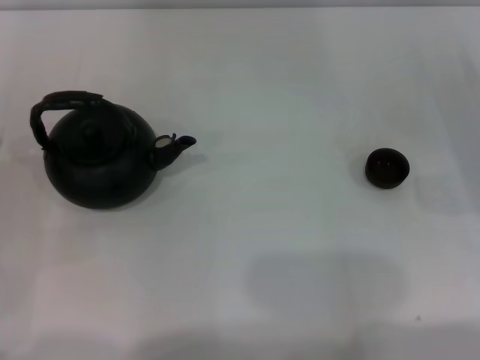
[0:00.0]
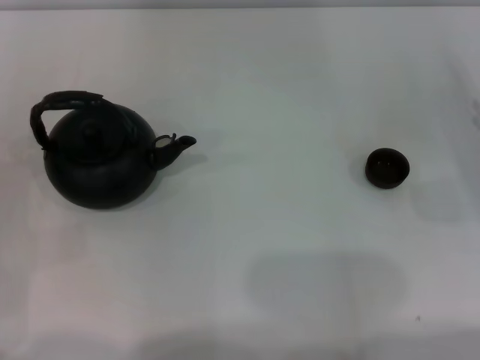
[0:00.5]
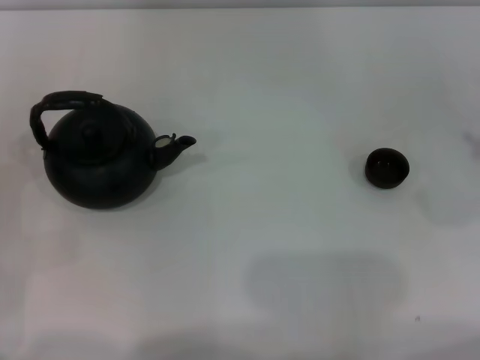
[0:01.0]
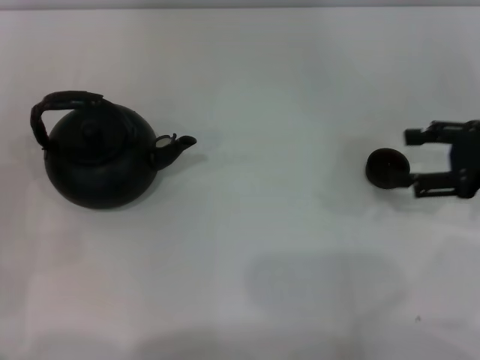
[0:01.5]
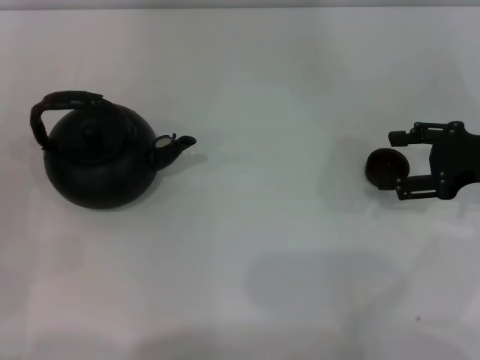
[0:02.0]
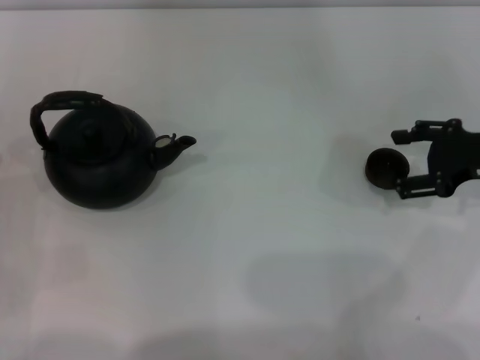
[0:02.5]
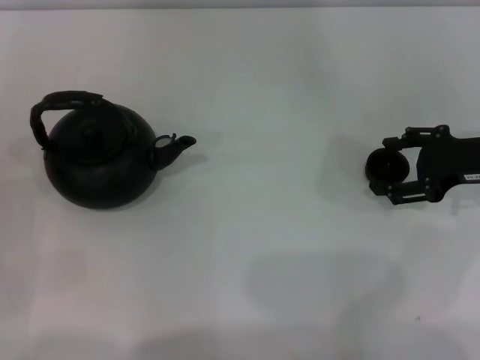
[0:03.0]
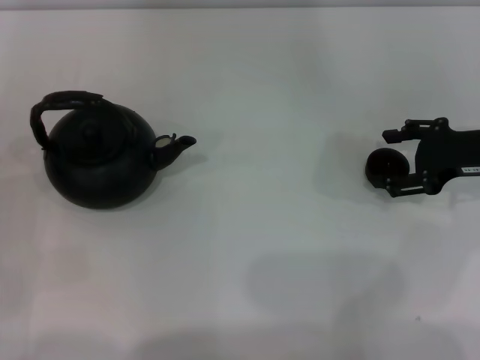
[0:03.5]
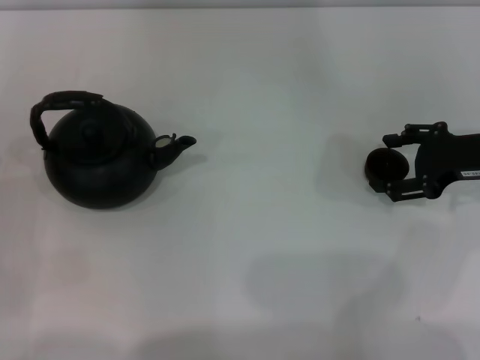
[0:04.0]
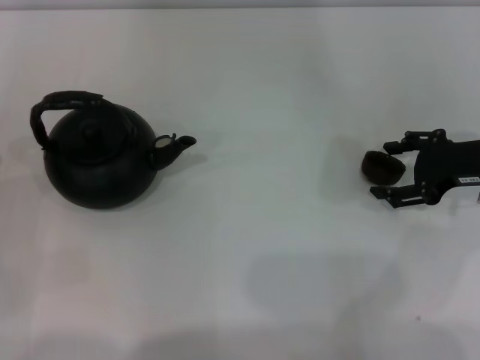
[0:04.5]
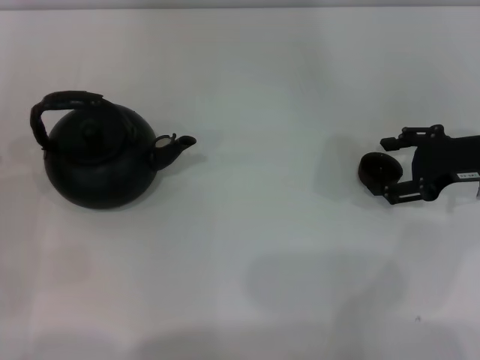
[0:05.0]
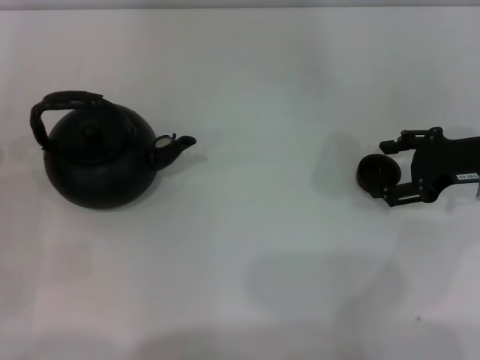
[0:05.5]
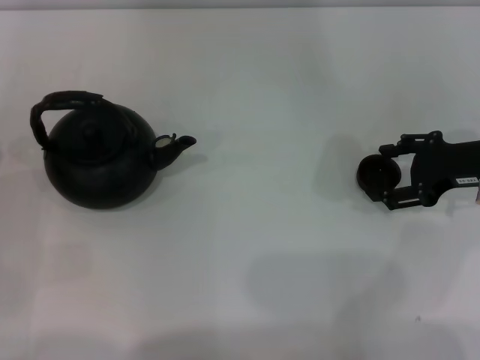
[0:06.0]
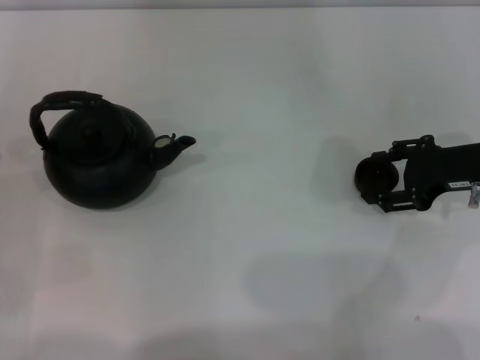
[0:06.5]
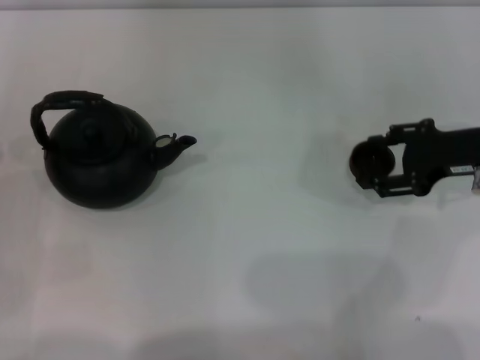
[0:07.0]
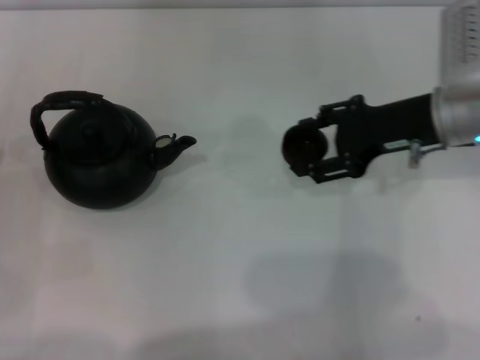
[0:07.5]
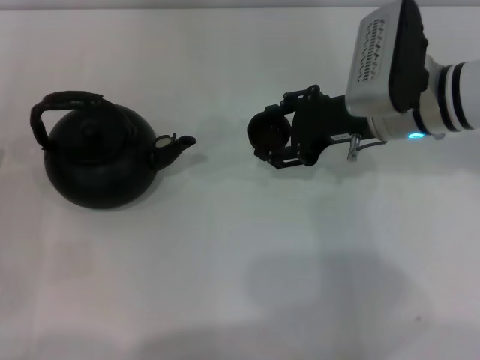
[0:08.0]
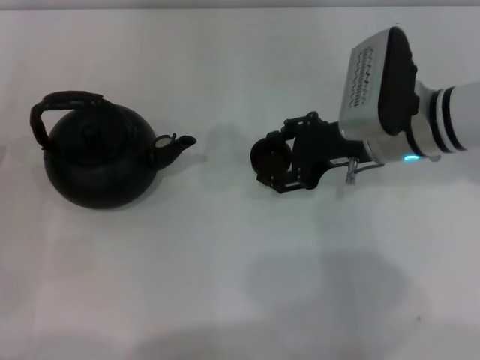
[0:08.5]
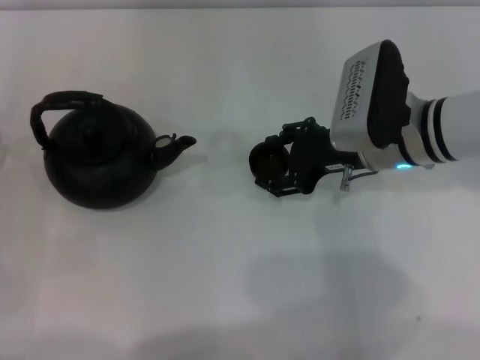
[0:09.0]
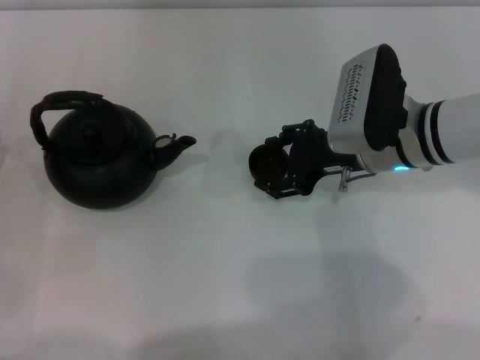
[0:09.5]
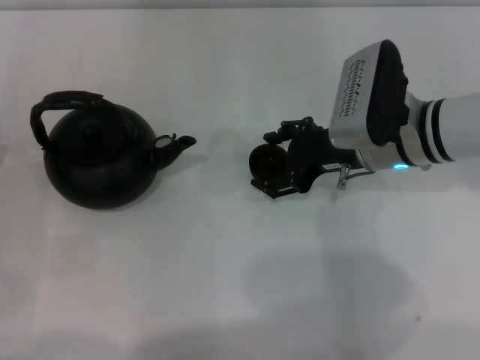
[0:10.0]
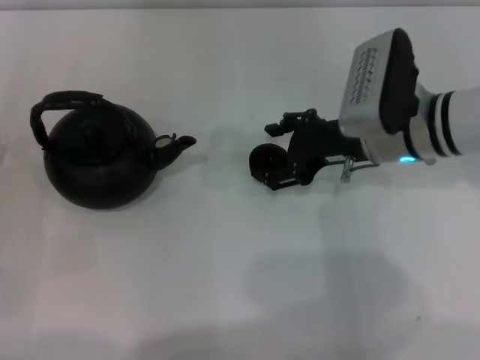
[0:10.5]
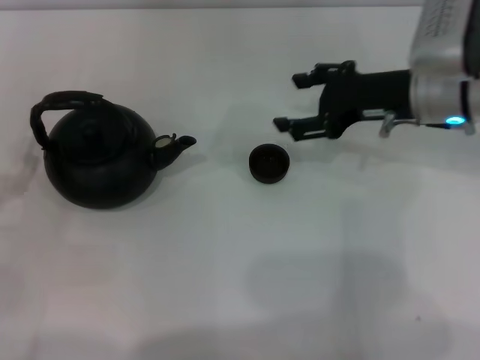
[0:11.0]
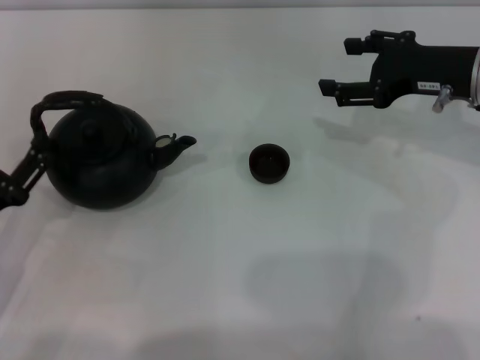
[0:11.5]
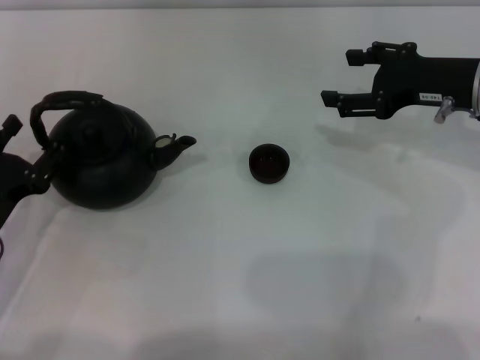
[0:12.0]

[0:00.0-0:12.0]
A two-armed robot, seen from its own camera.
Task of the whole recording: Grasp the handle of the teapot with one hand and pour tea into the teacup.
Step, 0:00.0 to 0:07.5: Pick up the teacup with the right gripper.
Step, 0:08.0 to 0:10.5: Place the teacup in the center of view with the right gripper.
0:00.0 to 0:02.0: The right gripper goes approximately 10 cm upward and to the left.
0:02.0 to 0:04.0: The grippers move only a little.
0:04.0 to 0:06.0: Both grippers stay put.
0:06.0 to 0:08.0: The right gripper moves to the left, roughly 15 cm, and closes its fingers.
0:08.0 to 0:10.0: The right gripper opens up.
0:10.0 to 0:12.0: The right gripper goes roughly 10 cm to the right; the left gripper travels to the right by about 5 cm.

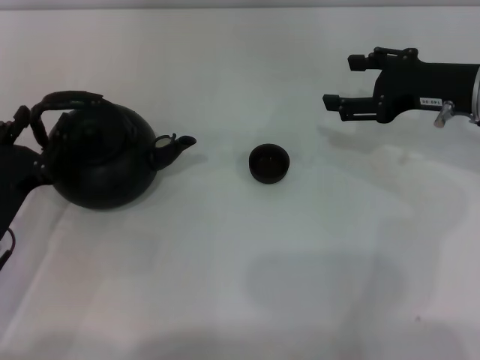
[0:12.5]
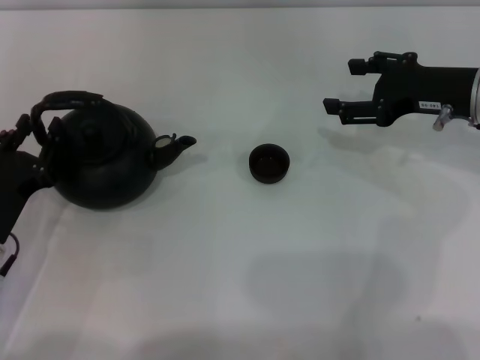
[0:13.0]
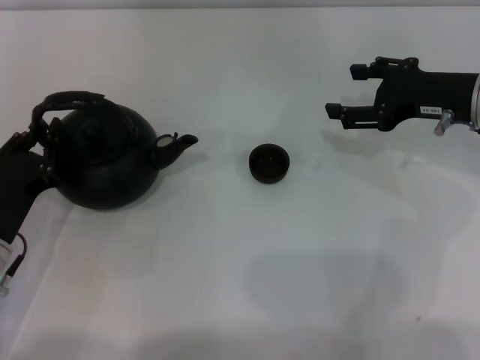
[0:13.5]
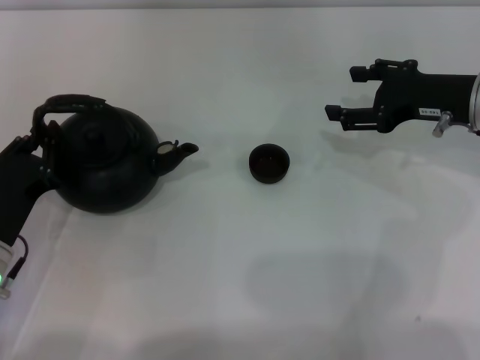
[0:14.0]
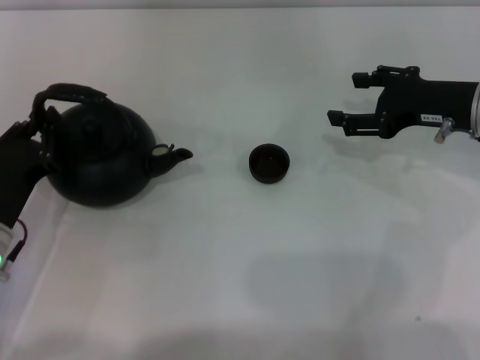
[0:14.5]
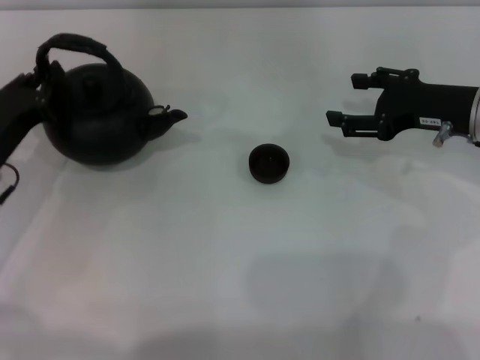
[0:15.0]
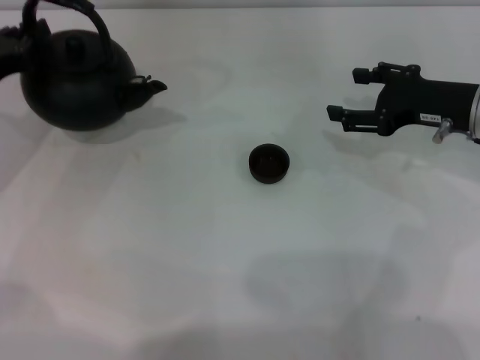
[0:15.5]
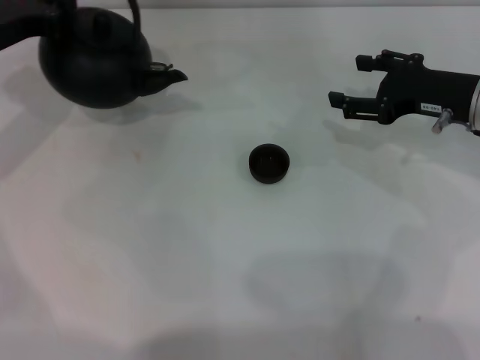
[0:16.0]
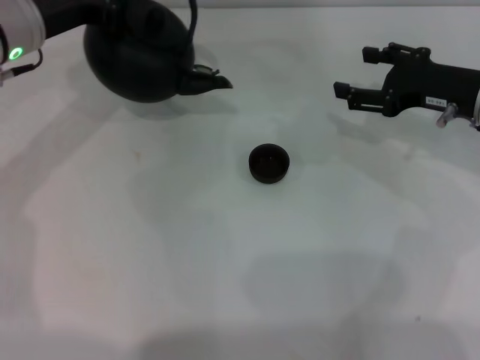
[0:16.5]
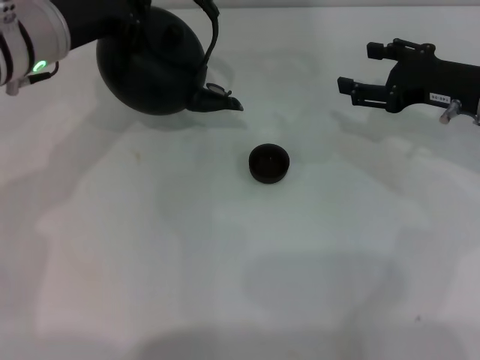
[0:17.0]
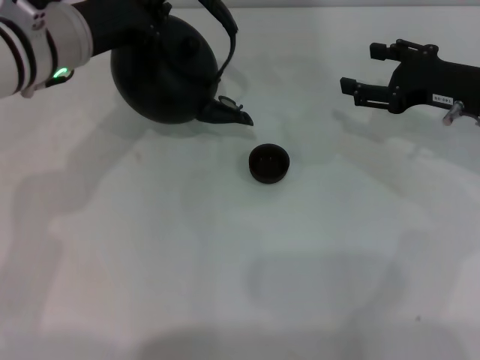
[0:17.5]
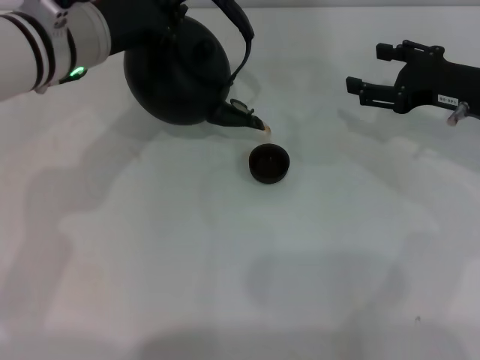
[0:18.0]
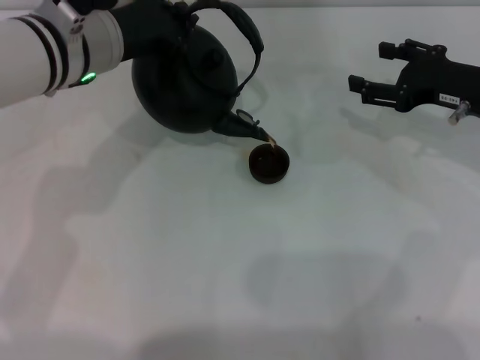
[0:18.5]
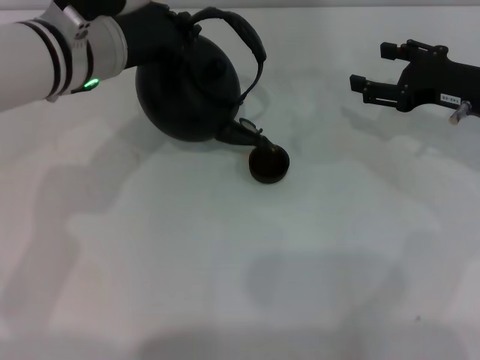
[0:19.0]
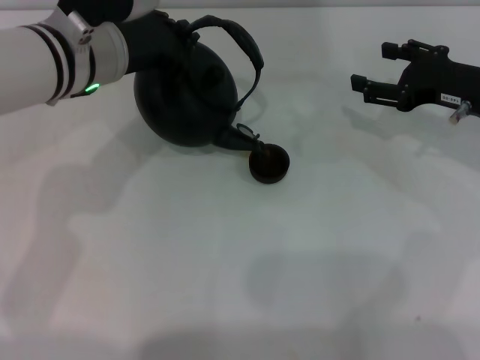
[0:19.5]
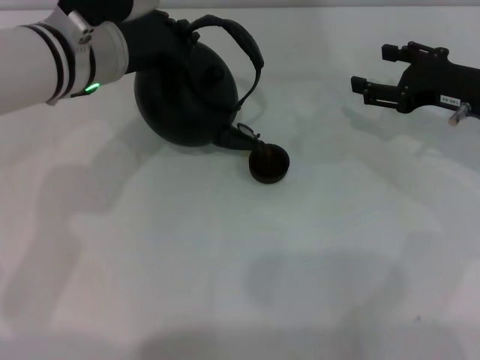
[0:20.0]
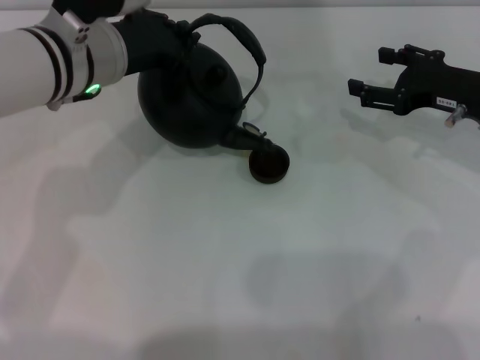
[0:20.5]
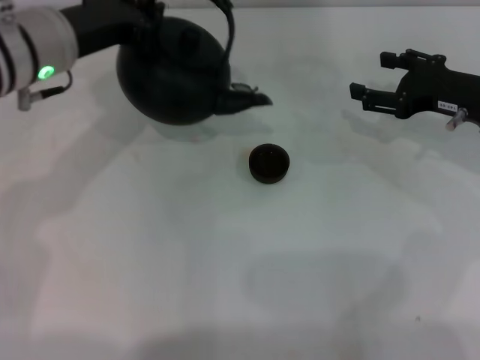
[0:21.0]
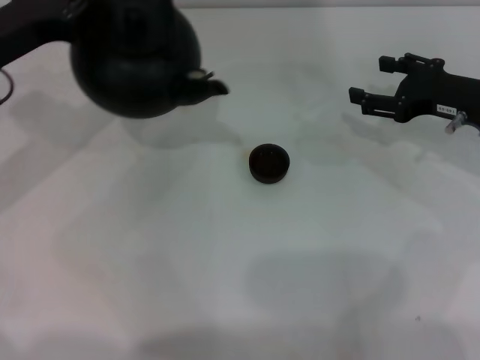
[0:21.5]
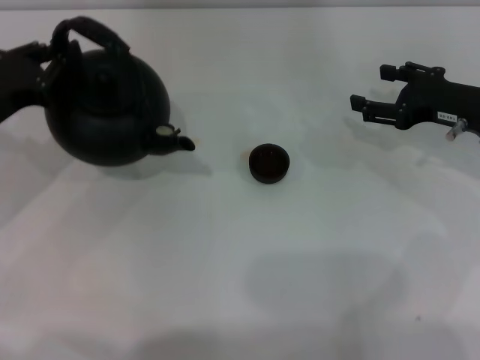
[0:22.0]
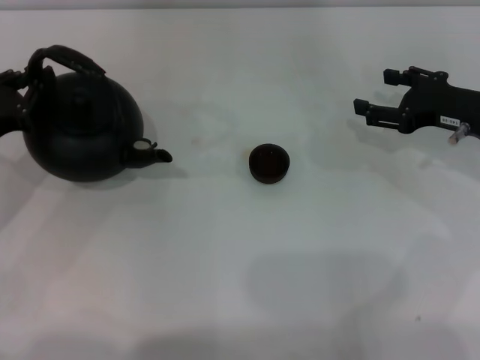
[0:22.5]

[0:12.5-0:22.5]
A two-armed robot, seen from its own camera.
Task of the whole recording: Grasp the handle of the teapot with one hand and pour tea into the teacup.
Step, 0:12.5 to 0:15.0: Pick up the teapot with the left gripper.
Step, 0:15.5 to 0:20.5: Pour tea into the teacup with the left gripper.
0:12.5 to 0:14.5: The left gripper closes up.
0:14.5 to 0:16.5: The left gripper travels forward and upward by roughly 20 cm.
0:16.5 to 0:18.5: The left gripper heads to the right, covering roughly 10 cm.
0:18.5 to 0:20.5: Neither gripper changes place.
0:20.5 to 0:22.5: The left gripper heads to the left, downward and backward, covering roughly 20 cm.

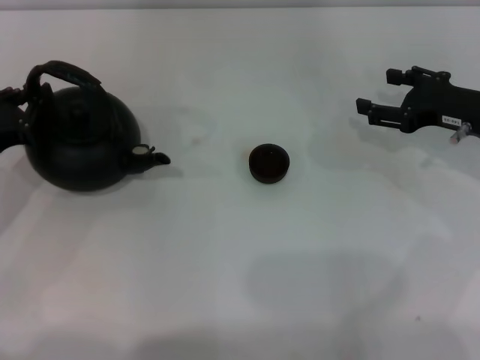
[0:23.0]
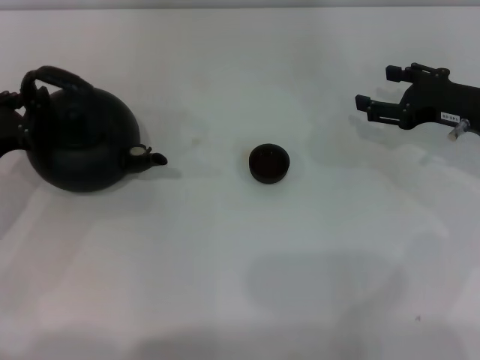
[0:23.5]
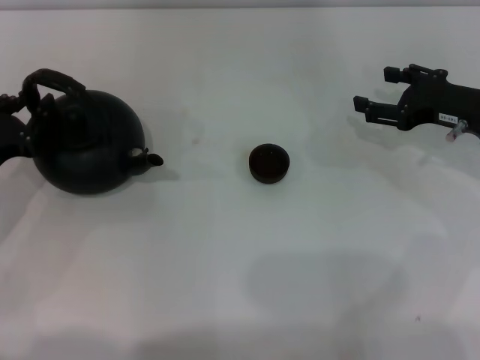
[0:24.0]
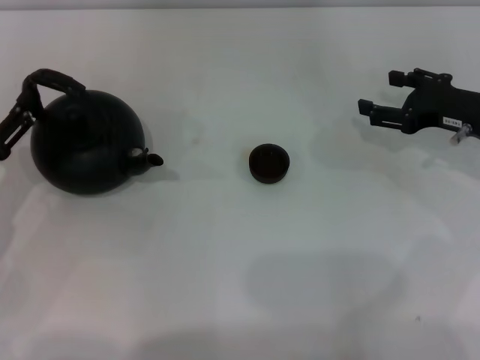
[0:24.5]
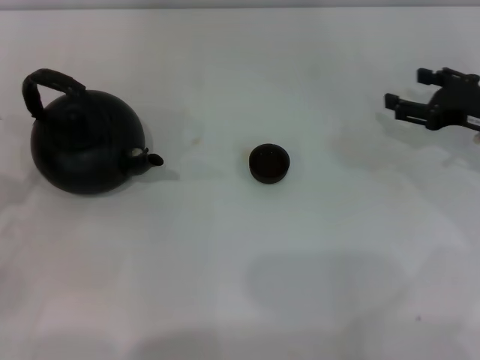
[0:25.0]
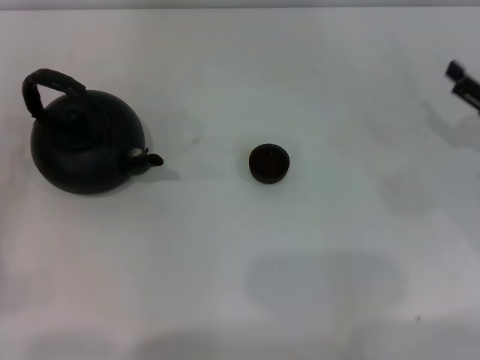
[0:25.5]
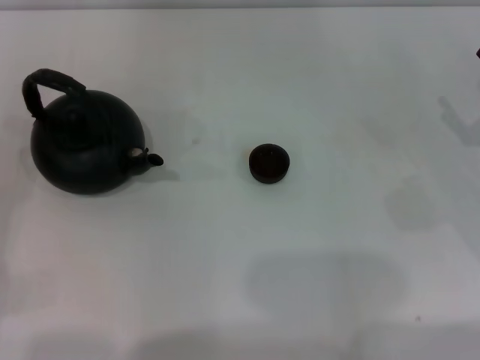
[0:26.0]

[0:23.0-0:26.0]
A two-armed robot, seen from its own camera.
Task of the whole recording: Grasp the handle of the teapot with one hand and pour tea into the teacup.
0:23.0 to 0:24.5: The left gripper opens.
0:24.5 to 0:26.0: The right gripper goes roughly 10 cm backward and to the right; the left gripper heads backward and to the left, covering some 10 cm, and opens up.
